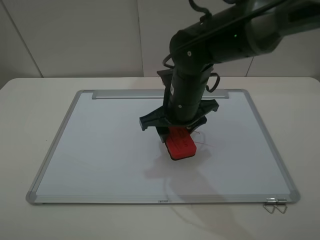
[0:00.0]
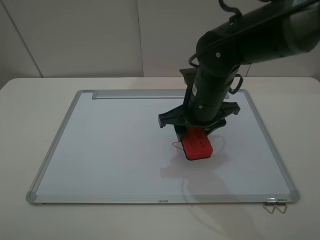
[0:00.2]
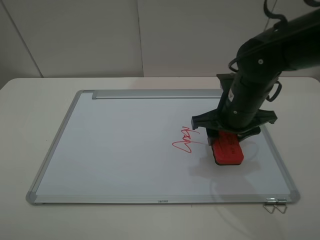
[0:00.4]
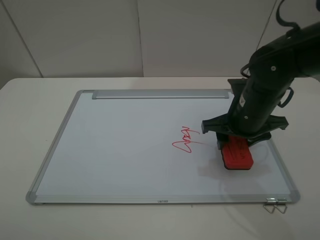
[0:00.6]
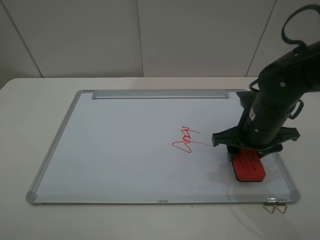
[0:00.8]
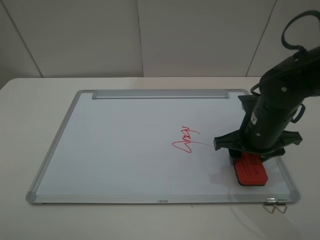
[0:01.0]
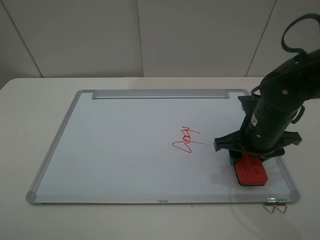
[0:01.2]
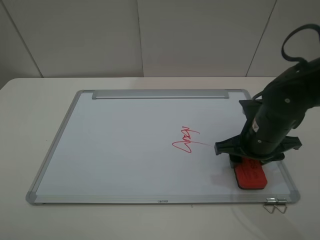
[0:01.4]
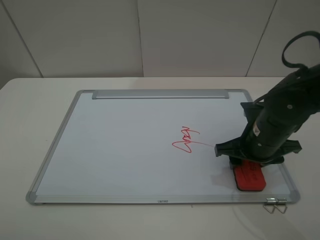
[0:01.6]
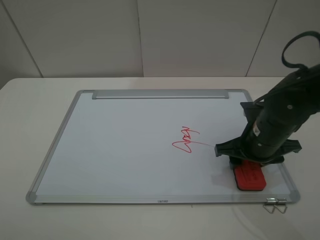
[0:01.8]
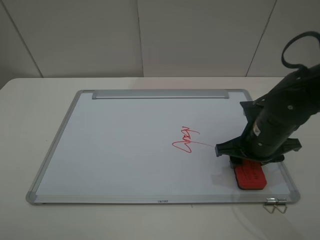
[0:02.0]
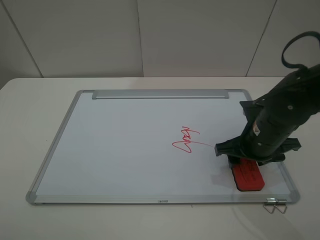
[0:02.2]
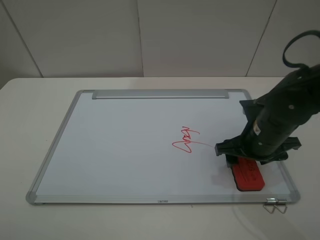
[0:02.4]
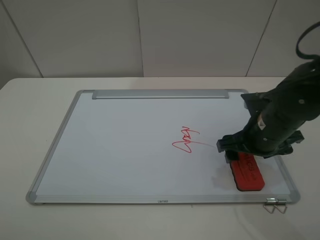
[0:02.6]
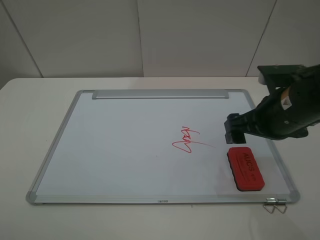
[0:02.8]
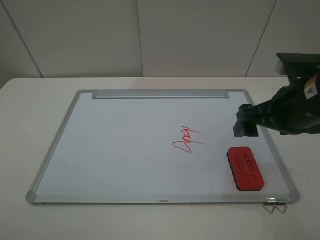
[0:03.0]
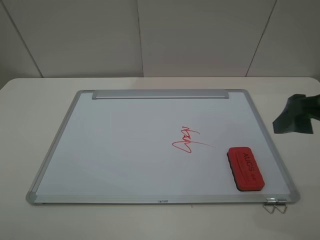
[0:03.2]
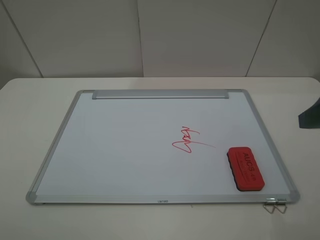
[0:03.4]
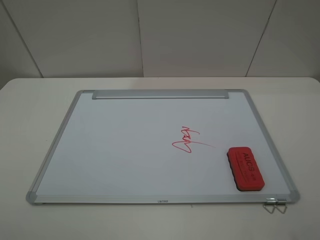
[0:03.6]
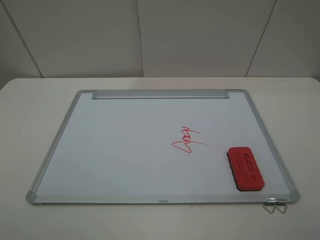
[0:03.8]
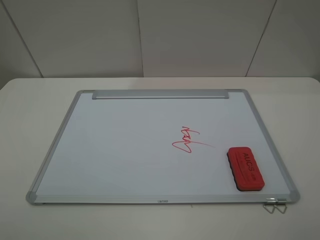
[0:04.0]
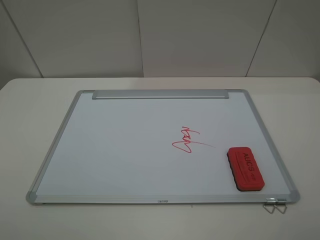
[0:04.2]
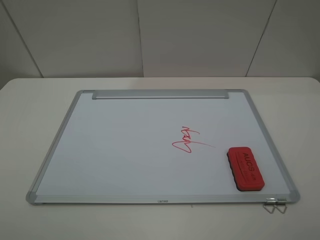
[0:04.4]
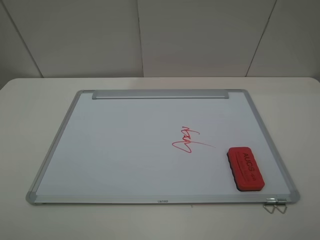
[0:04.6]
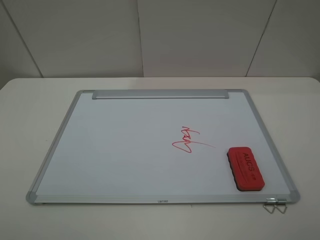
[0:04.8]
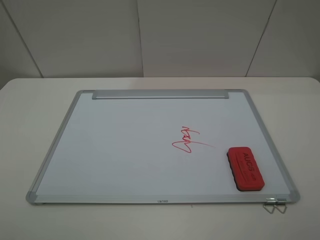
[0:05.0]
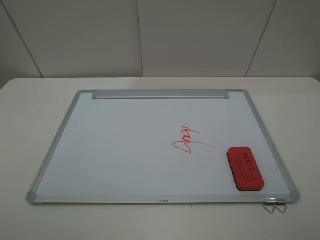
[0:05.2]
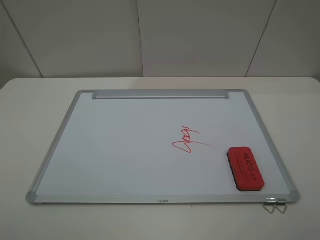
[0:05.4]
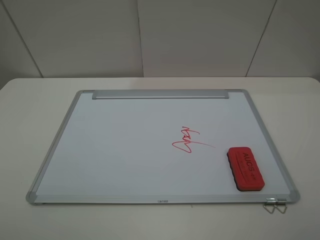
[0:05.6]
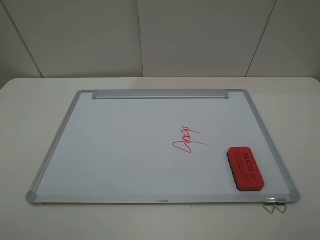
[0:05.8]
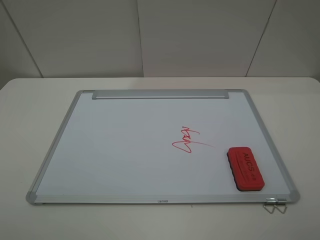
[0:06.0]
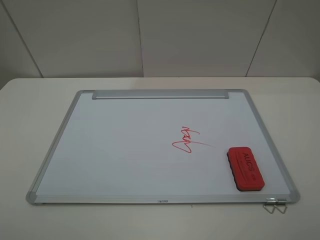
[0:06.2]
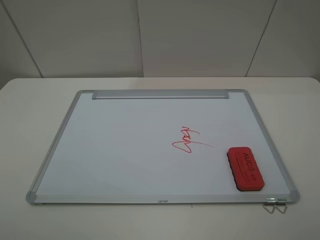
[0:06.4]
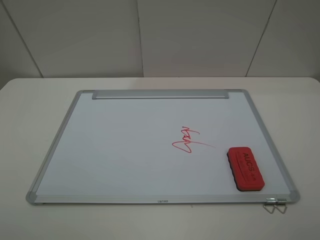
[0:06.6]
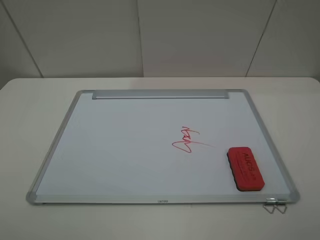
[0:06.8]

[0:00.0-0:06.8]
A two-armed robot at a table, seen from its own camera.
Step, 0:00.0 to 0:02.6: Place the eraser with the right gripper.
0:00.0 to 0:01.4: The right gripper is displaced to the right by some 15 cm.
0:01.4 to 0:02.8: The right gripper moves upward, roughly 10 cm, and opens up.
0:02.8 to 0:04.0: The right gripper goes about 25 cm backward, upward and to the right.
0:05.4 to 0:06.8: Both grippers stay put.

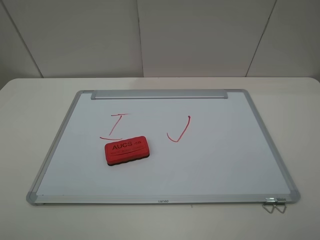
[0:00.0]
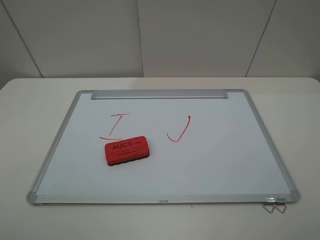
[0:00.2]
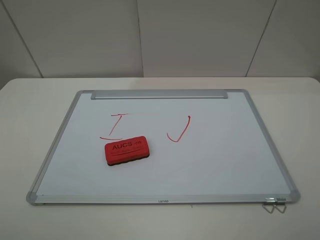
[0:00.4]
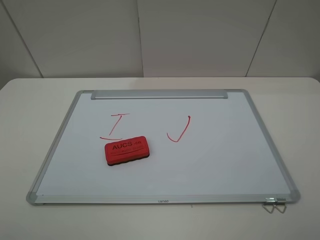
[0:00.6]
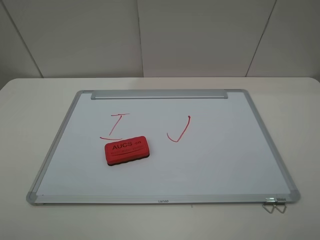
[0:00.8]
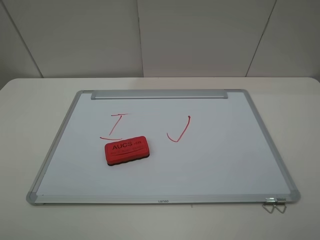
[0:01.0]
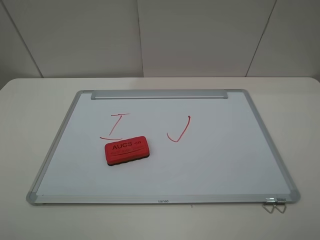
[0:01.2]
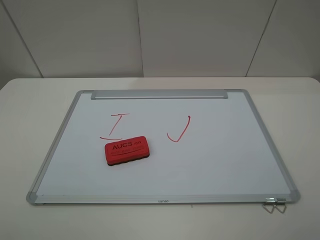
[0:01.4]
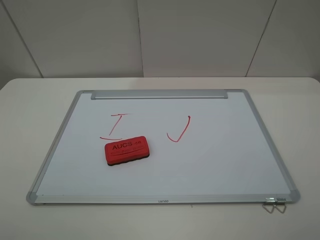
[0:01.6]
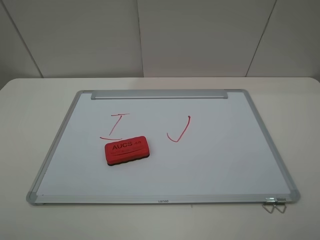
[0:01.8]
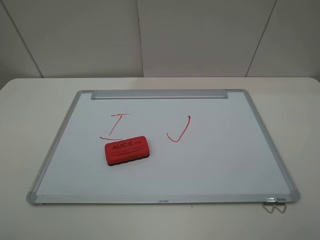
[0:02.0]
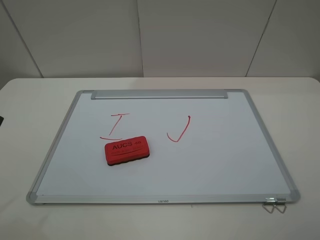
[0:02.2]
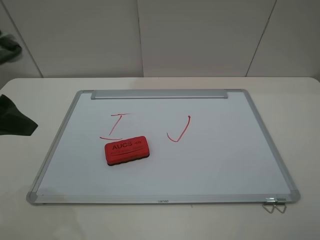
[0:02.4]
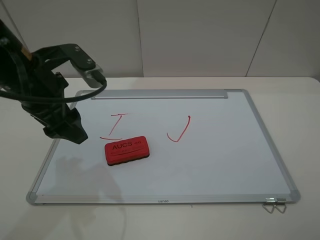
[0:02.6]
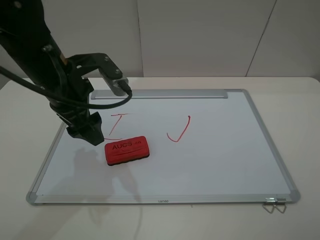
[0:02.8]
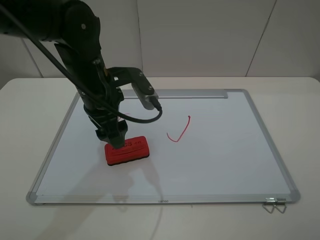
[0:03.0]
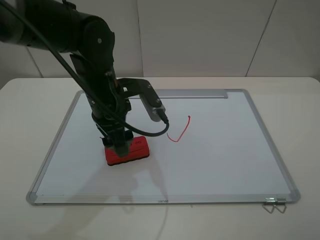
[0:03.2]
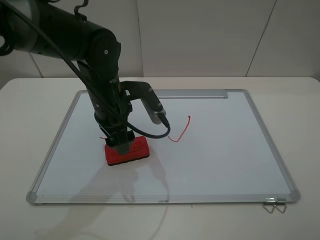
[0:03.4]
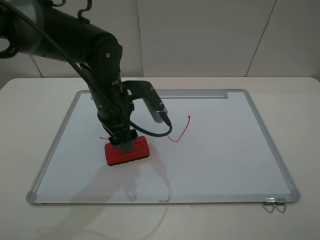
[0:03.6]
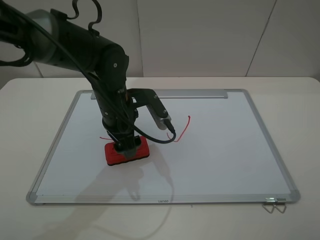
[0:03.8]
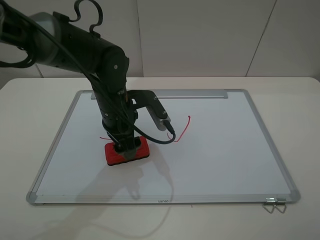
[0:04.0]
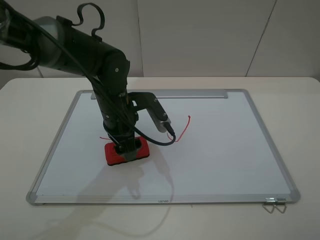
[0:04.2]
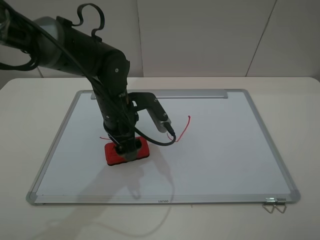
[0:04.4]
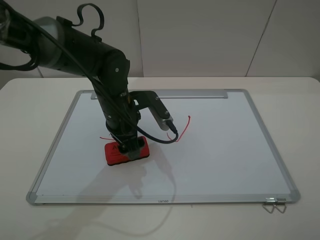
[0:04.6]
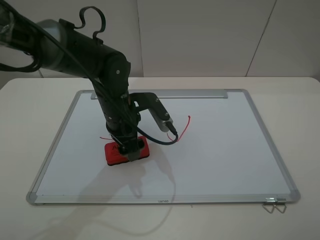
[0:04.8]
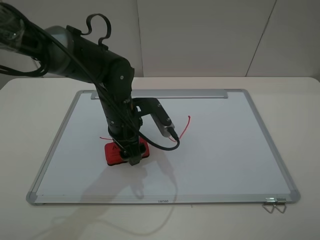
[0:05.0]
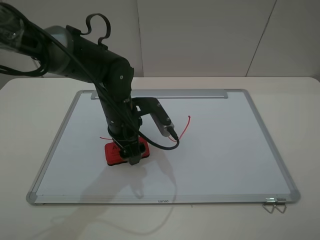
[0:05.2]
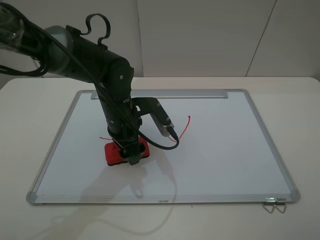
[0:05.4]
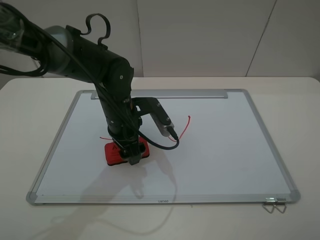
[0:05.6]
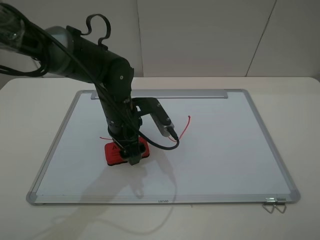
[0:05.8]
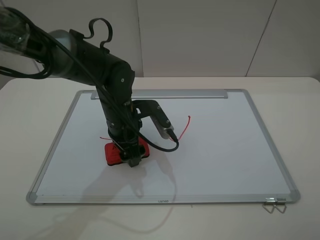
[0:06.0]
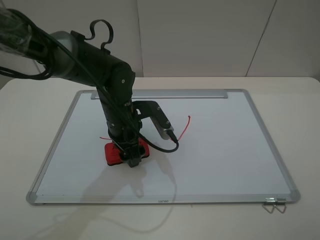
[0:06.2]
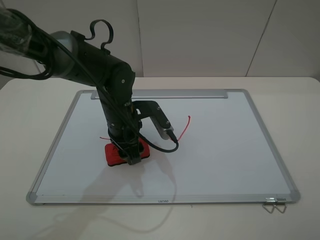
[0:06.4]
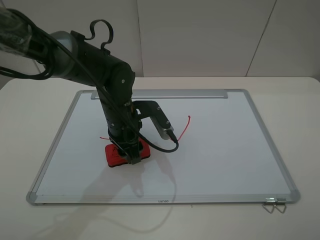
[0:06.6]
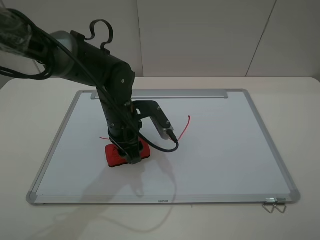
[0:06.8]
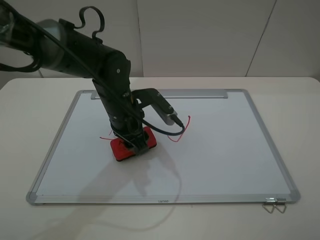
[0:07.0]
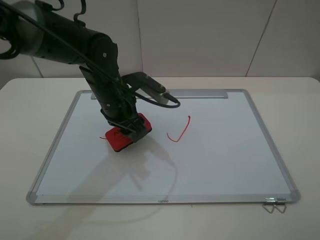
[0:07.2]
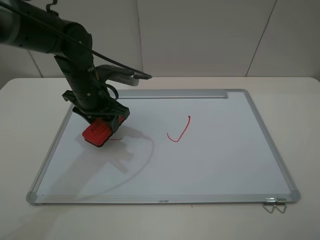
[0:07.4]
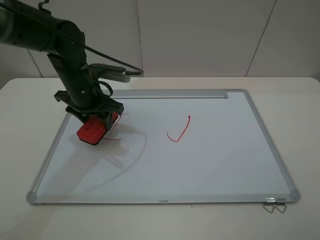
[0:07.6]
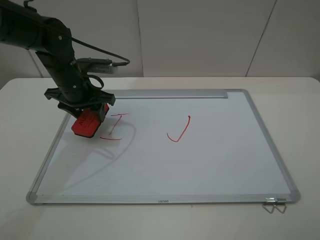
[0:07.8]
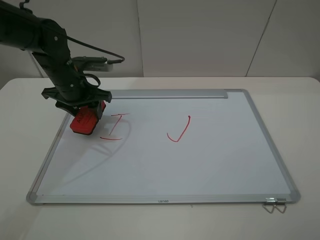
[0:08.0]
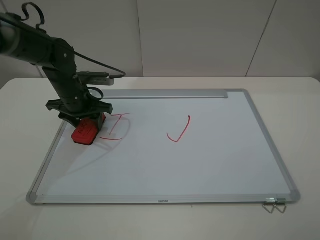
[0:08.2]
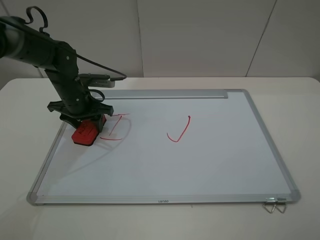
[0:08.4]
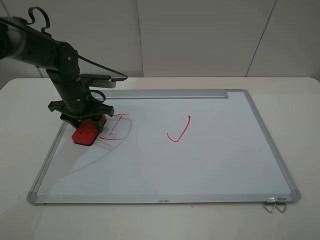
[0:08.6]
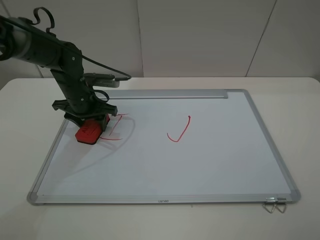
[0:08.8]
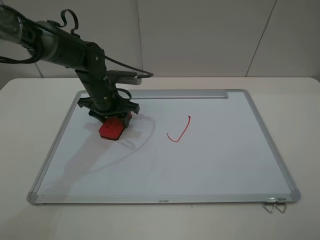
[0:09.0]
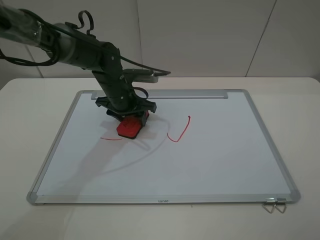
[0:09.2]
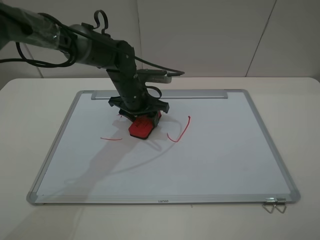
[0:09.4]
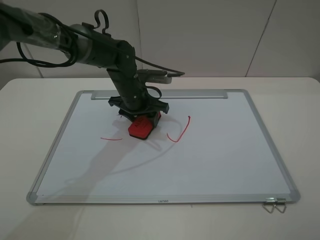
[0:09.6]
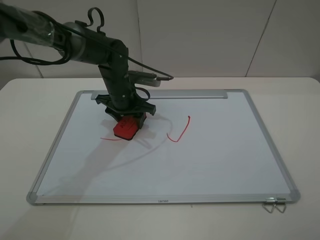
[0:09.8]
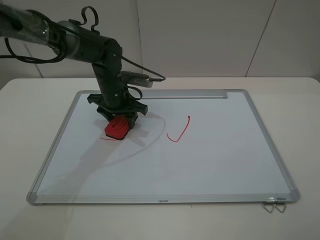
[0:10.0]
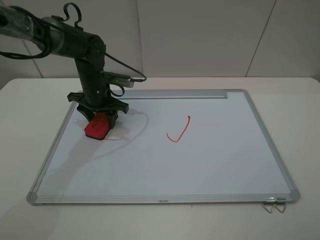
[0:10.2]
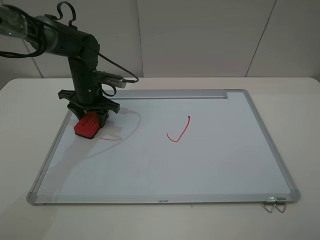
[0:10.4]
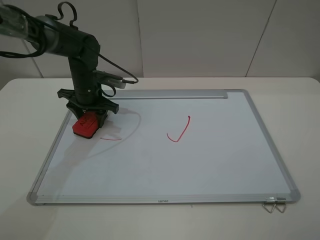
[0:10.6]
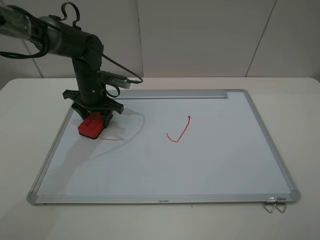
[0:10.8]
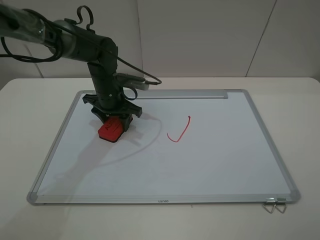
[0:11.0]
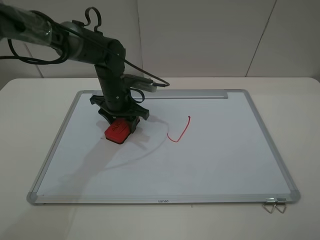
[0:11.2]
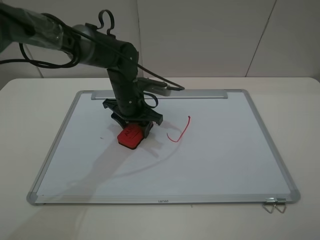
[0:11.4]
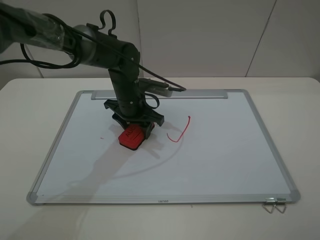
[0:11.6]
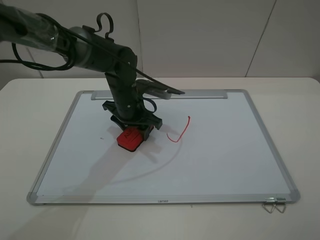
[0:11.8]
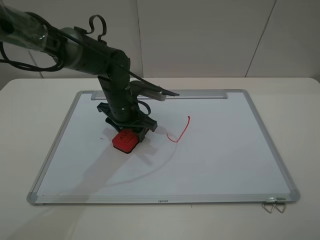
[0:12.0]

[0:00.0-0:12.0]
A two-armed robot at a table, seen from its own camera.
Step, 0:00.0 to 0:06.4: Grasp the eraser with the left gripper.
0:00.0 to 0:01.6: Both grippers stay about where they are.
0:01.6 to 0:03.0: The left gripper heads forward and to the right, covering approximately 35 cm.
0:03.0 to 0:04.4: The left gripper goes roughly 5 cm downward.
0:04.4 to 0:06.0: There are only small adjustments of the grippers.
0:06.0 to 0:07.6: The left gripper moves to the left, some 10 cm, and closes.
0:07.6 to 0:09.0: The left gripper is displaced downward by some 5 cm.
0:10.4 to 0:12.0: The left gripper travels to the right and backward by about 10 cm.

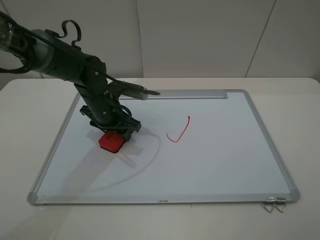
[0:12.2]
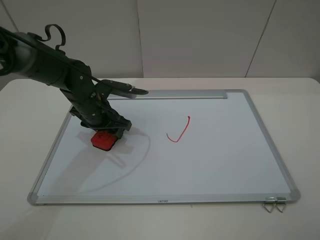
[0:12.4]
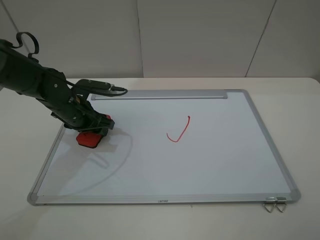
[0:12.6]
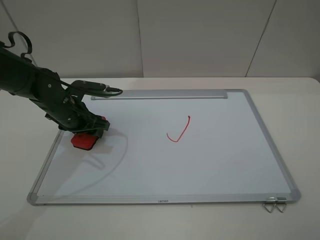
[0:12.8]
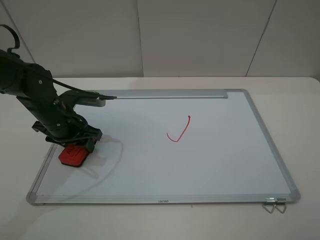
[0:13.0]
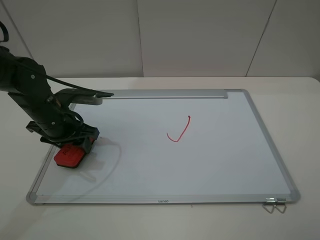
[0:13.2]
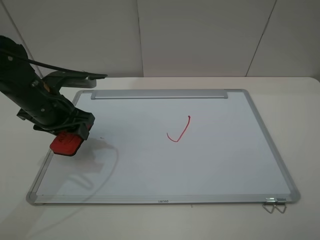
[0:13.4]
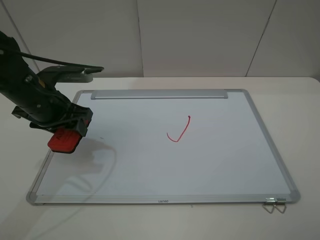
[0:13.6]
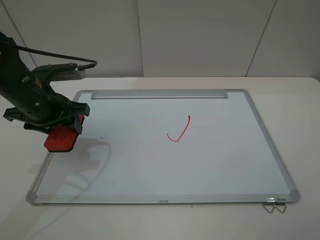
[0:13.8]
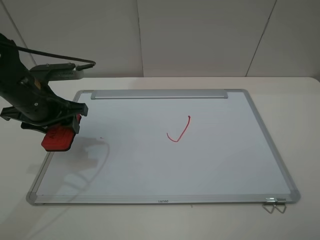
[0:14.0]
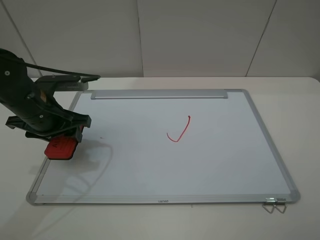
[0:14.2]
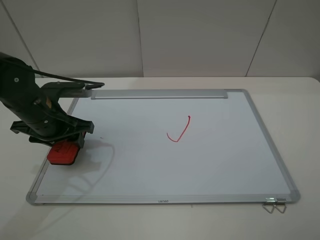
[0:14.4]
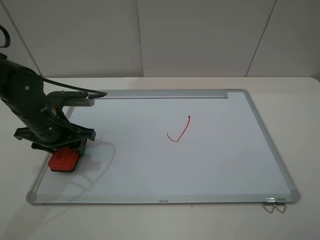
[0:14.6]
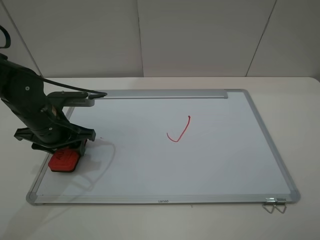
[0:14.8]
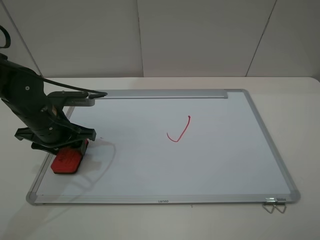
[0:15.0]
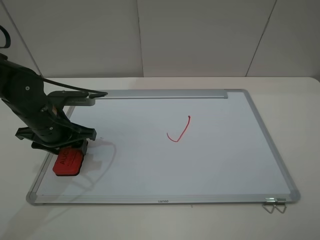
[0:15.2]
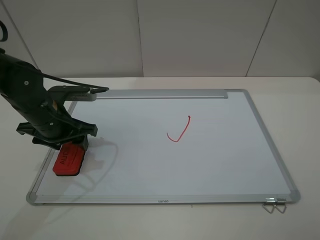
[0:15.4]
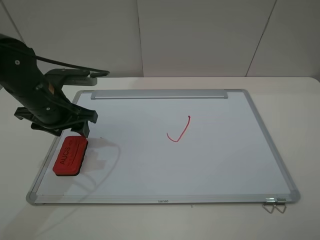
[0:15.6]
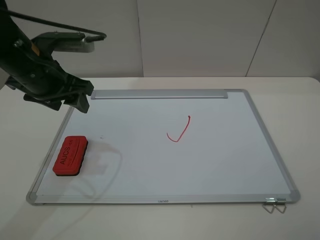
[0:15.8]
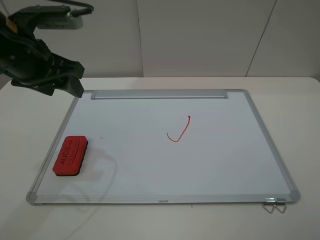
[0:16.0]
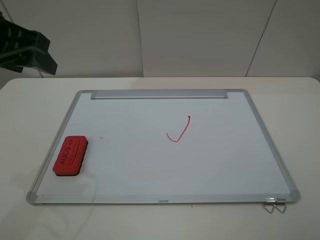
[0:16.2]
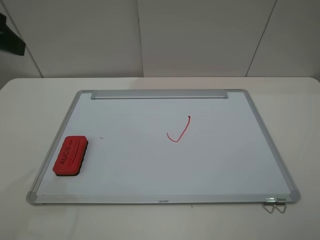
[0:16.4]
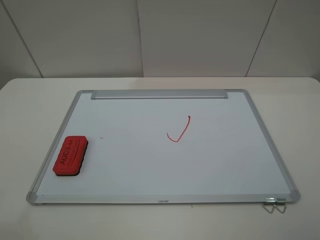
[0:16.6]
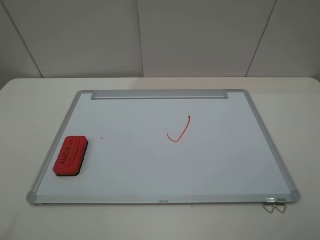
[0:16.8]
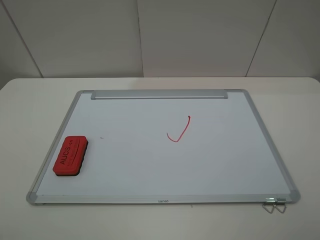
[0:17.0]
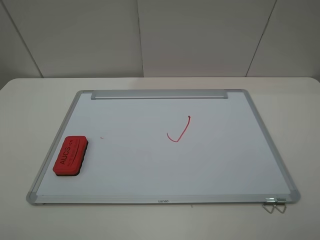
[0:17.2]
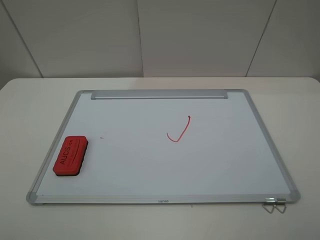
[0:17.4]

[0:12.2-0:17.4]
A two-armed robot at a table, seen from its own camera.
Step, 0:13.2 to 0:15.4: Place the eraser with the left gripper.
0:12.2 to 0:14.0: The left gripper goes approximately 15 cm to the left, upward and backward.
0:14.0 to 0:15.6: The grippers stay close to where they were, moving slightly.
0:15.6 to 0:17.4: The left gripper is displaced backward, upward and to the left by roughly 30 cm.
